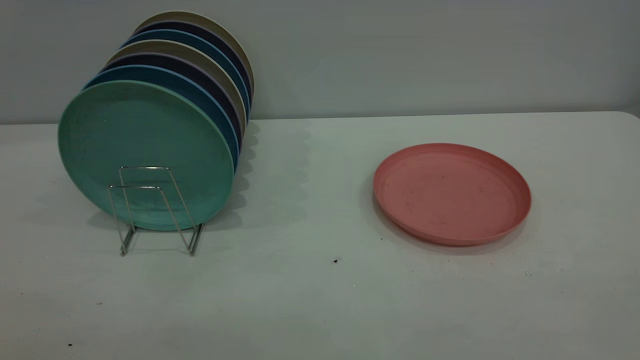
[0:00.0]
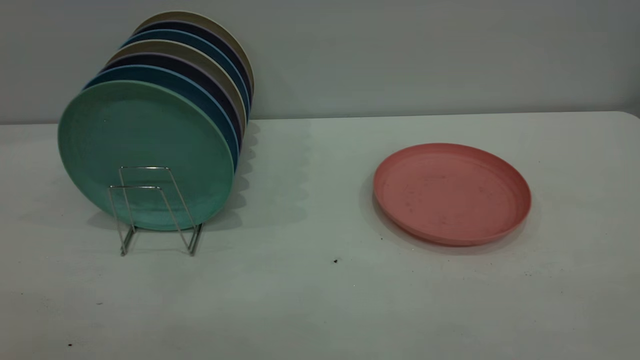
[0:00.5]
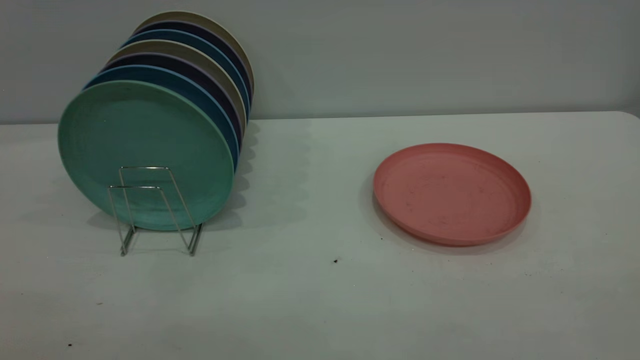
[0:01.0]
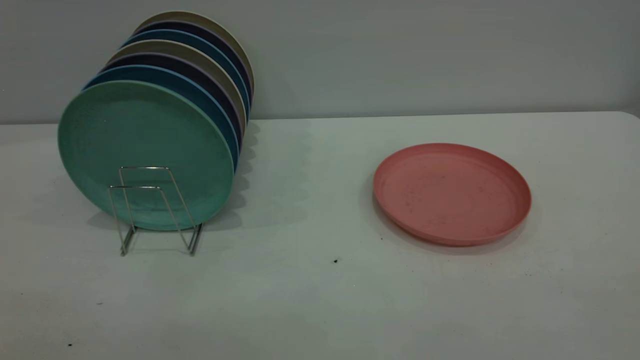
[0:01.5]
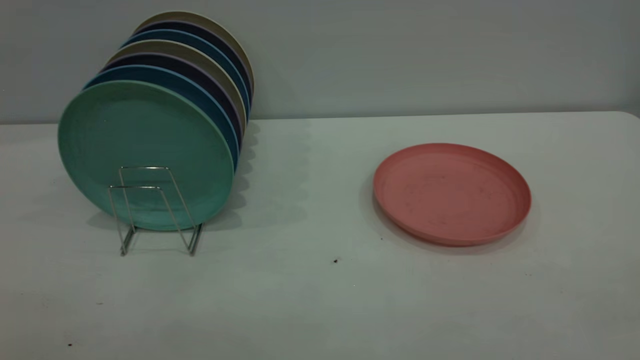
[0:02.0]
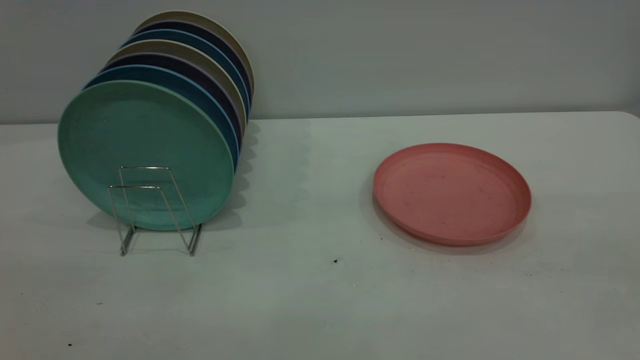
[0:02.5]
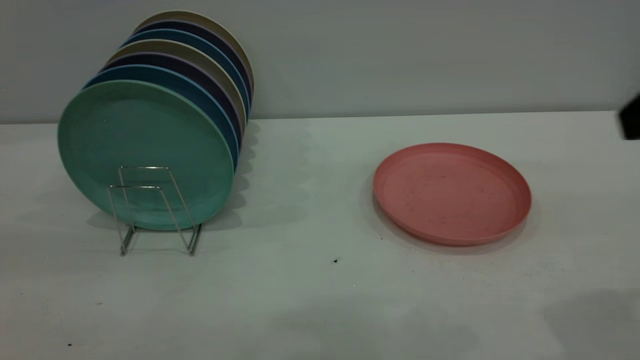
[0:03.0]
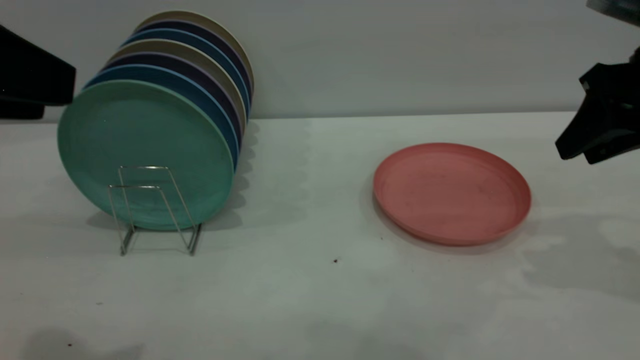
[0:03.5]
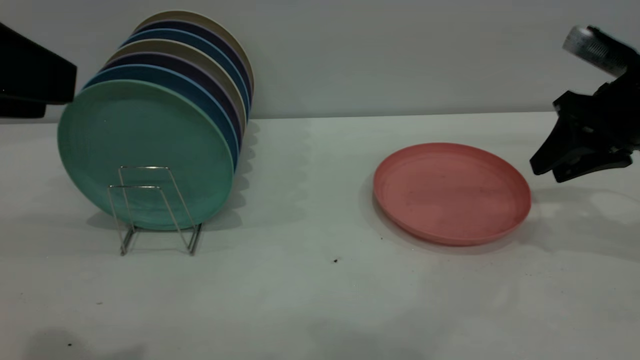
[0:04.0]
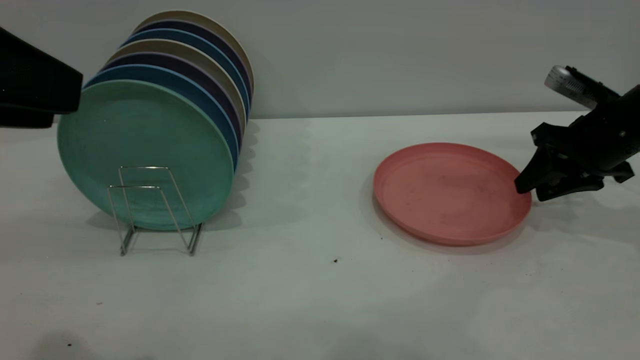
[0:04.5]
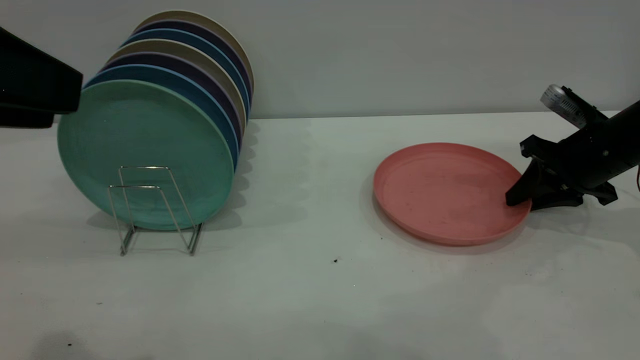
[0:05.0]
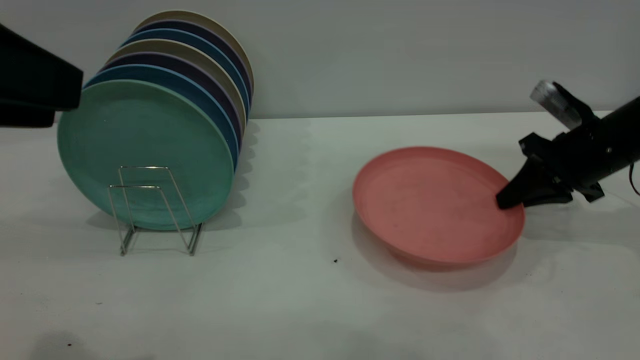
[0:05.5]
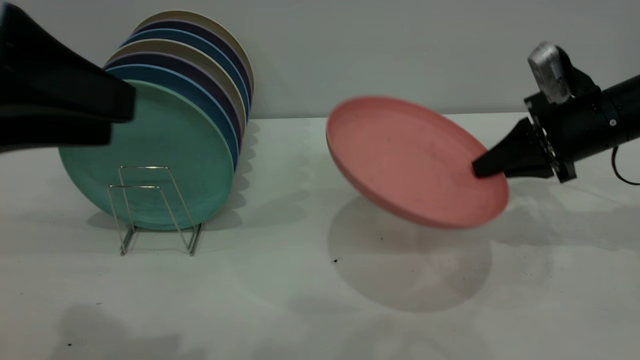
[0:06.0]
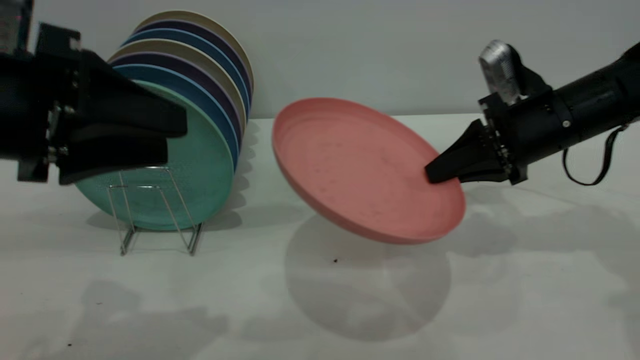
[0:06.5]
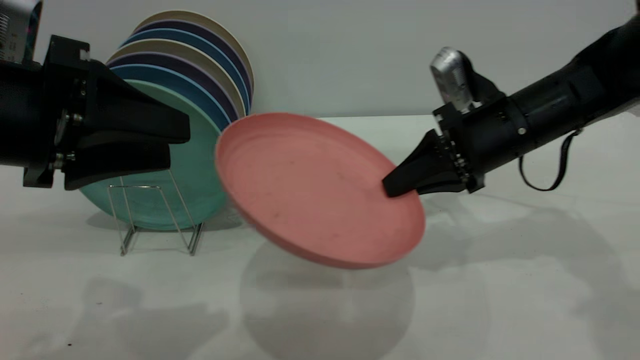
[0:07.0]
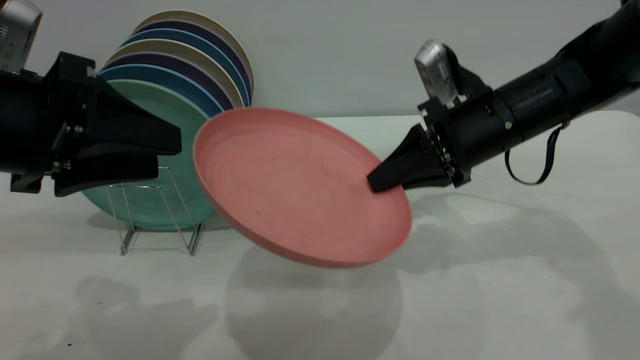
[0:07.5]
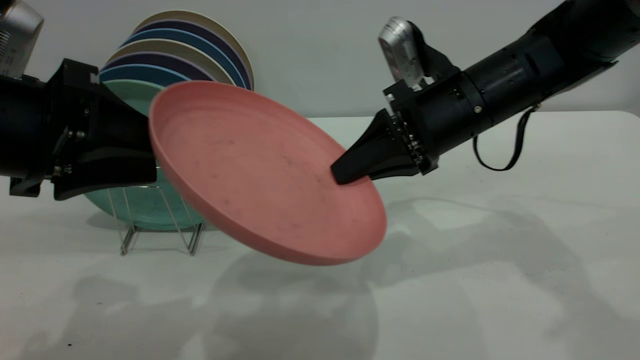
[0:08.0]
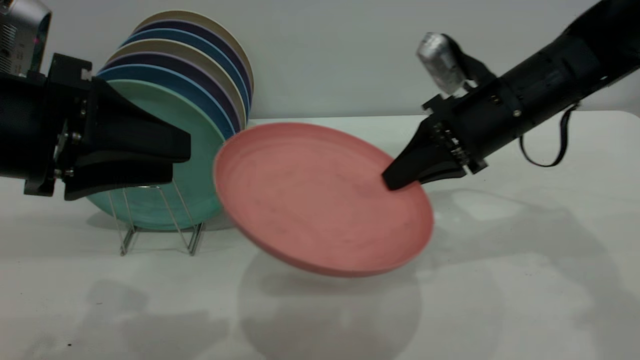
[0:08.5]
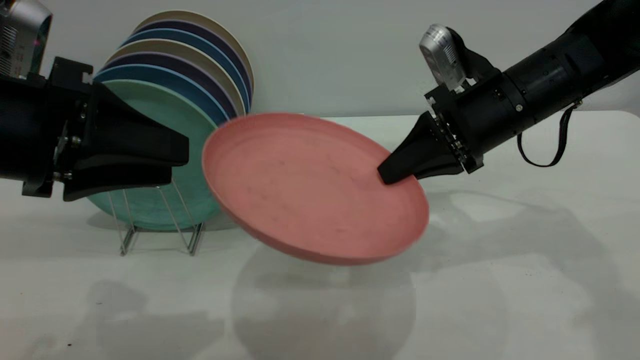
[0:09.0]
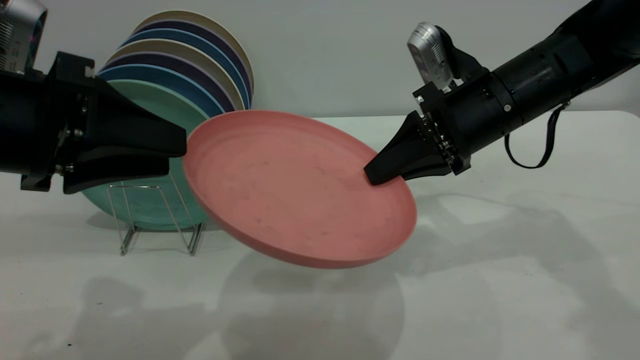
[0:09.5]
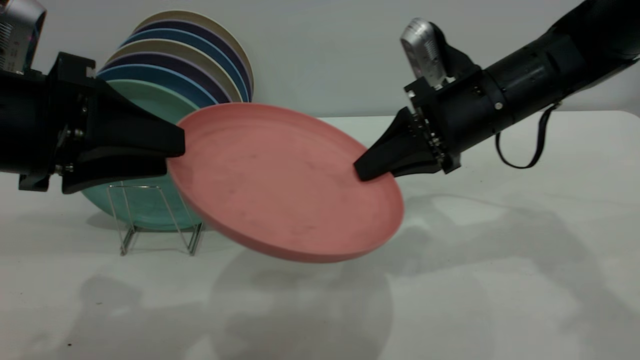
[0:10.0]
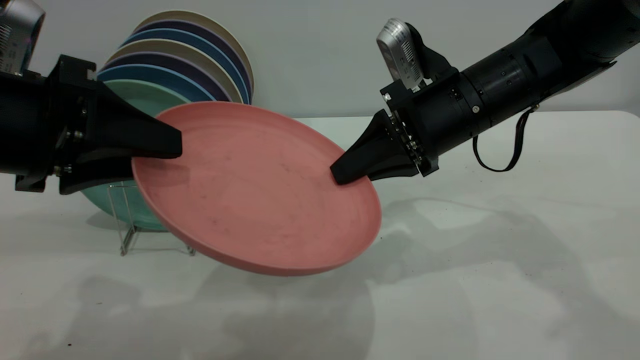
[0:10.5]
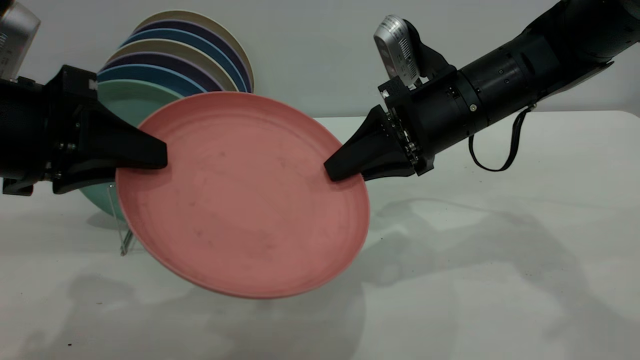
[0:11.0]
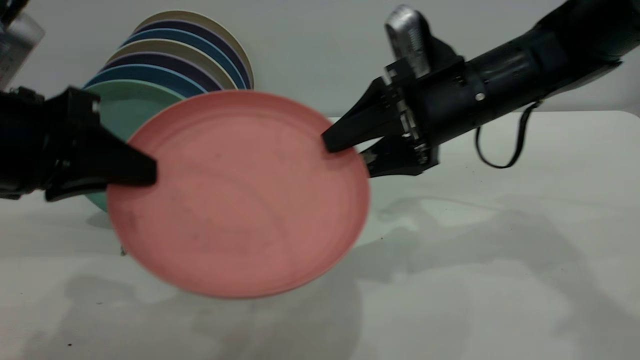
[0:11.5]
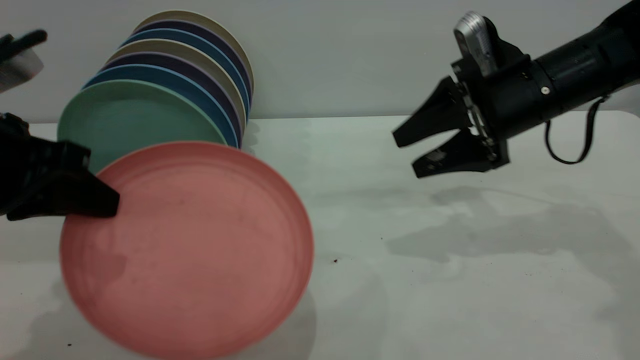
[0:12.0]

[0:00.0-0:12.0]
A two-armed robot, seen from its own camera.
Task of the whole recording: the right gripper grasp the pink plate, the right gripper pass the pink plate to the left gripper, and the left gripper place the pink plate on the plate rack.
Step, 0:00.0 to 0:05.5: Pick up the plate with the right gripper.
0:00.0 to 0:02.0: Neither gripper changes place.
0:02.0 to 0:04.0: The right gripper travels forward and downward by roughly 40 cm. The left gripper is displaced forward by about 20 cm.
0:04.0 to 0:06.0: The right gripper closes up.
0:06.0 to 0:08.0: The right gripper is displaced to the left by approximately 15 cm, while the left gripper shifts approximately 5 cm downward.
0:08.0 to 0:10.0: The grippers stay close to where they were, moving slightly.
0:10.0 to 0:12.0: The right gripper moves to the right, about 5 cm, and opens. The left gripper closes.

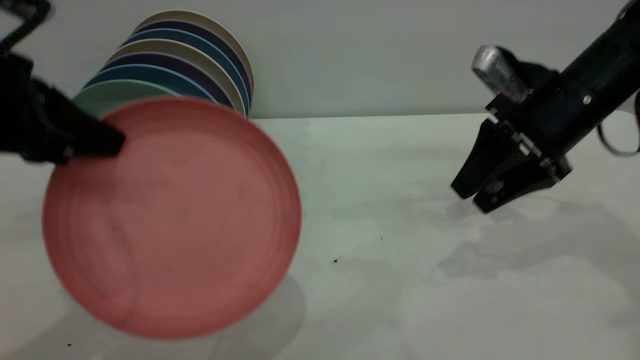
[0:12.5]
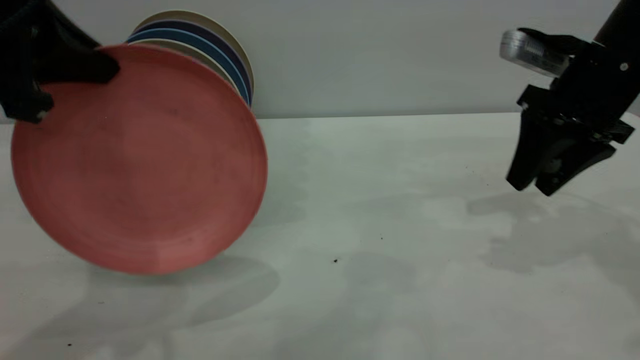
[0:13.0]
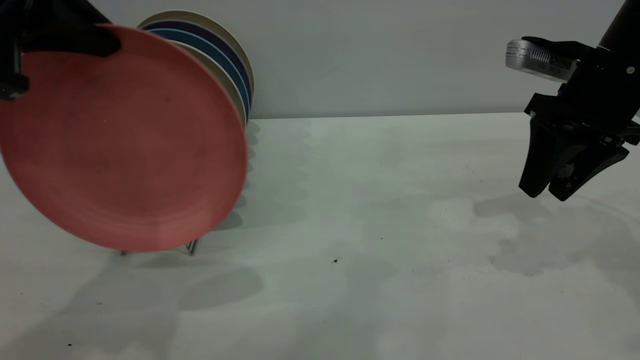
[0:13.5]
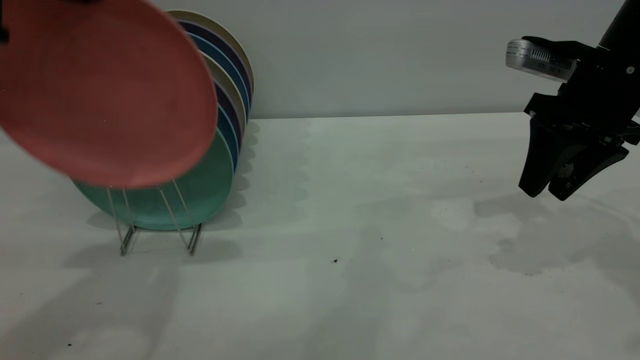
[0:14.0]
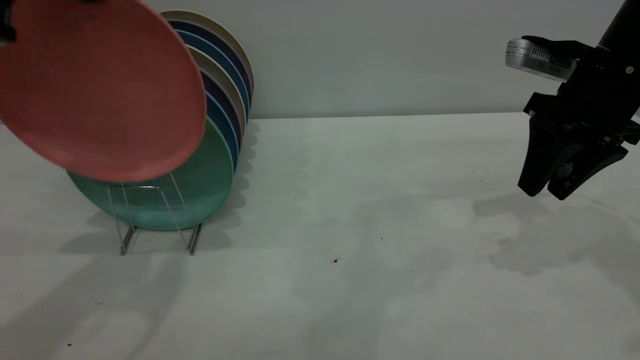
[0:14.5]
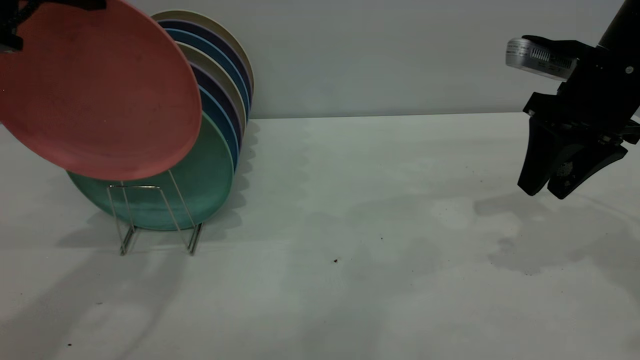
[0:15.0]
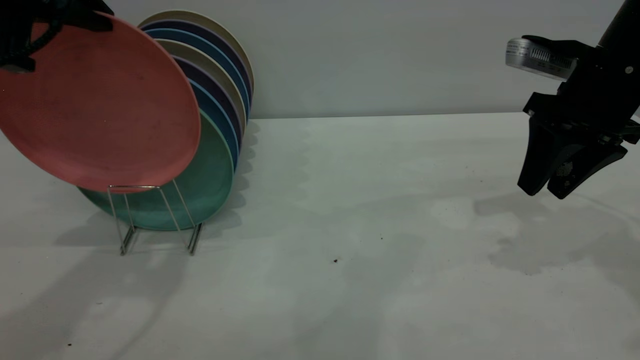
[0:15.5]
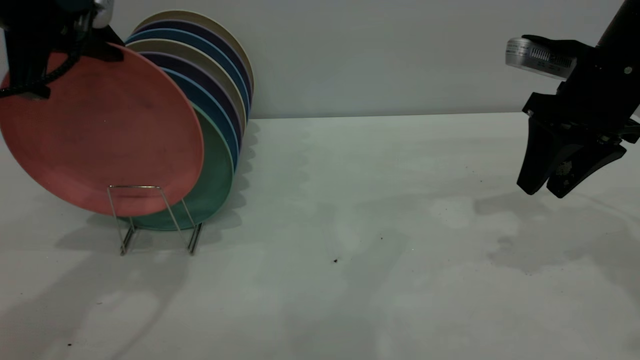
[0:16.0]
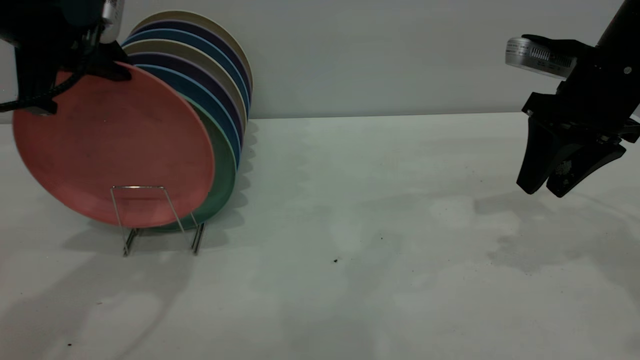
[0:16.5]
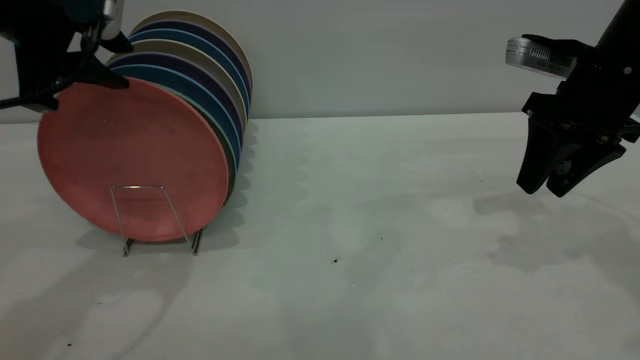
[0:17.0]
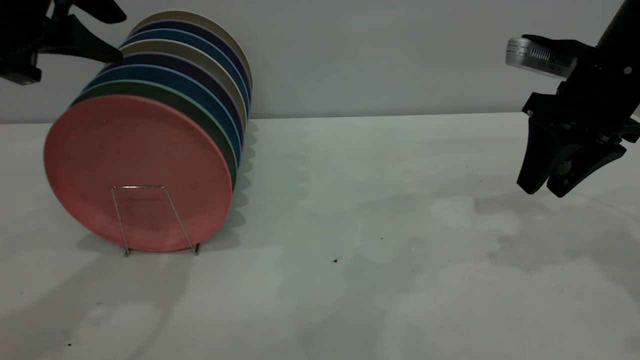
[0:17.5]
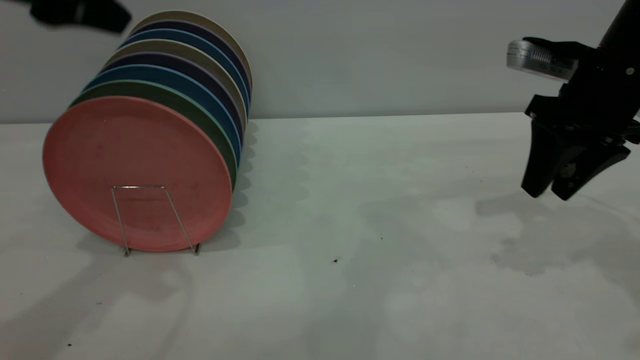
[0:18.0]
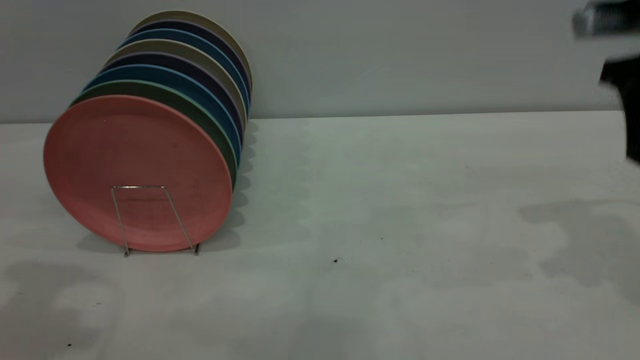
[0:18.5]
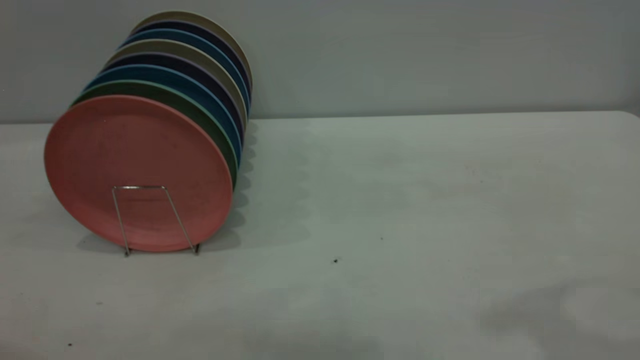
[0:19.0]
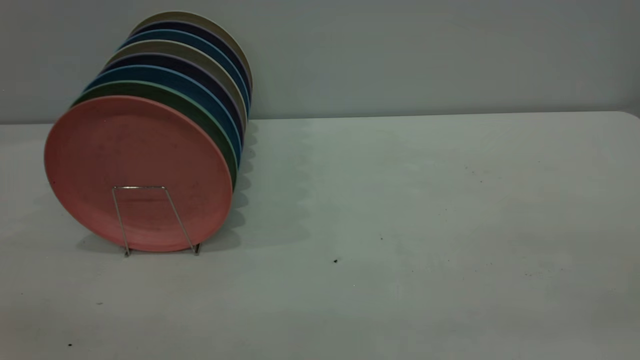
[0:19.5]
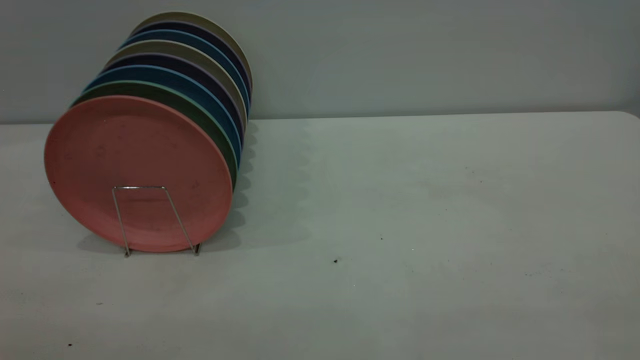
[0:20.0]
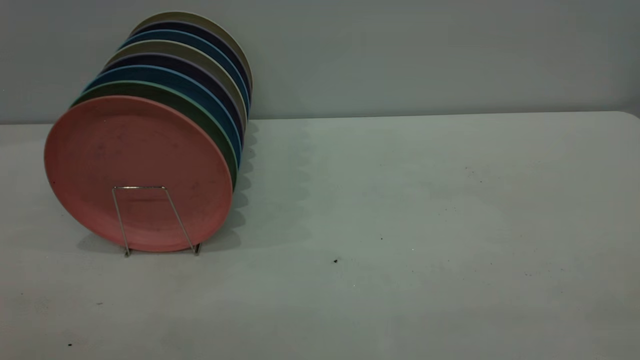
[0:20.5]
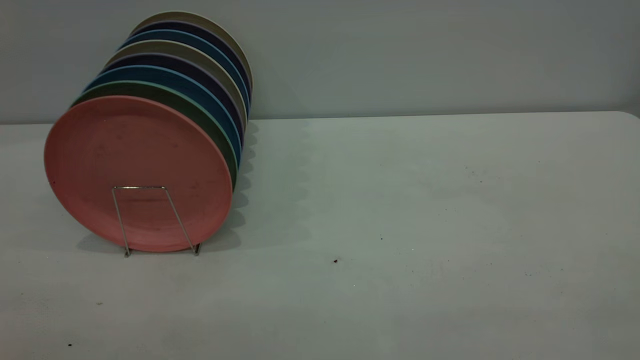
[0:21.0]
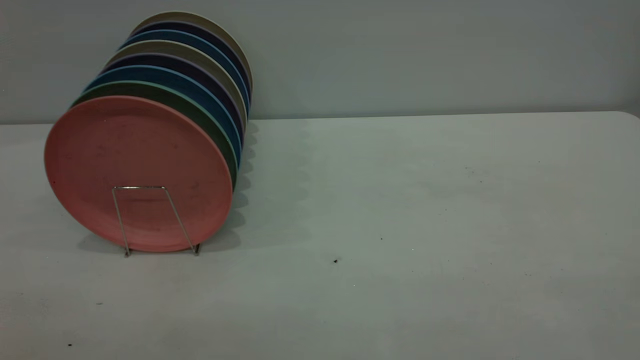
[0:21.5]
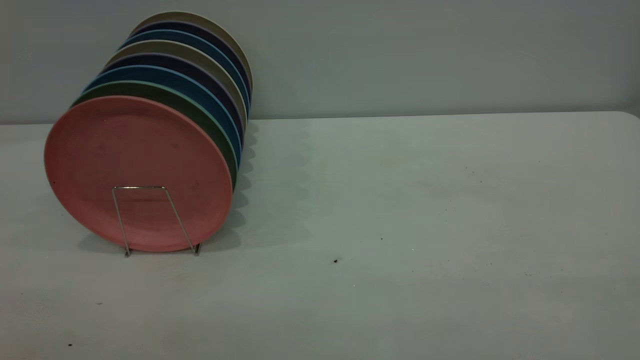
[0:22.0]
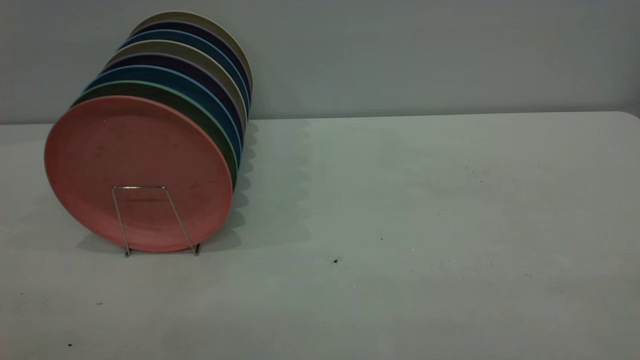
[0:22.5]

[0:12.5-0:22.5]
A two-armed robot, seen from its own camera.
Task of the whole recording: the right gripper grasp the pink plate, the right gripper pass the pink plate to the left gripper, and the left gripper place the pink plate on the plate rack.
Step, 0:13.5 to 0:18.0: Place the plate on the shelf.
0:12.5 to 0:14.5: The left gripper travels upward and forward by roughly 10 cm.
0:14.5 to 0:16.5: The left gripper goes some 5 cm downward.
0:16.5 to 0:18.5: The right gripper goes roughly 10 cm upward. The left gripper moves backward and upward, approximately 10 cm, and opens up.
0:18.5 to 0:20.5: The right gripper travels backward by roughly 35 cm.
